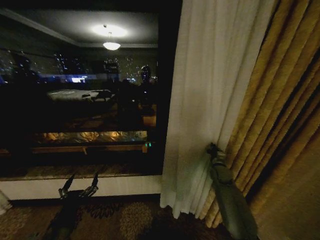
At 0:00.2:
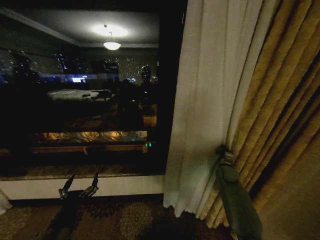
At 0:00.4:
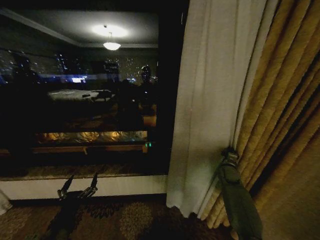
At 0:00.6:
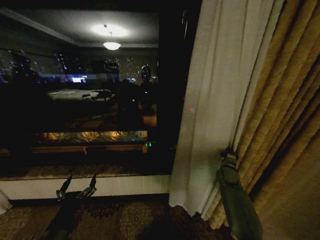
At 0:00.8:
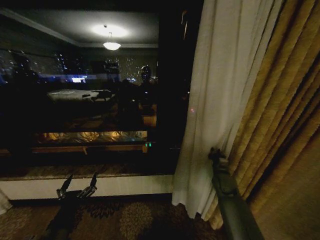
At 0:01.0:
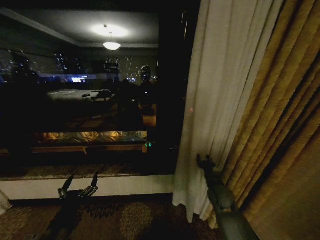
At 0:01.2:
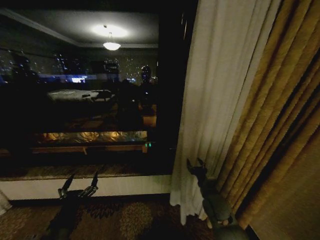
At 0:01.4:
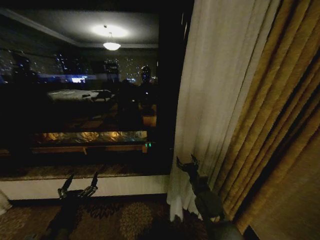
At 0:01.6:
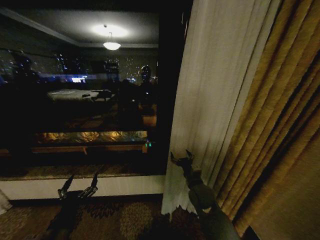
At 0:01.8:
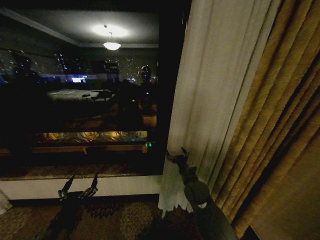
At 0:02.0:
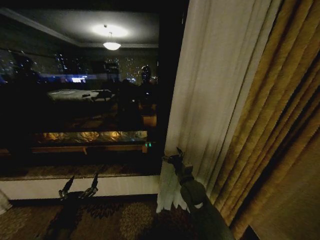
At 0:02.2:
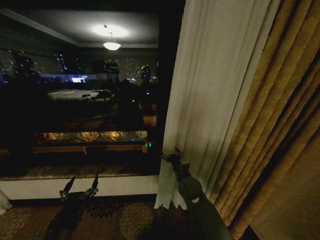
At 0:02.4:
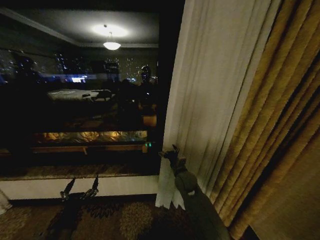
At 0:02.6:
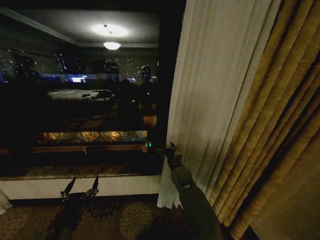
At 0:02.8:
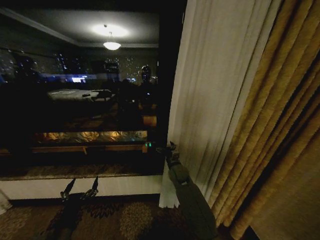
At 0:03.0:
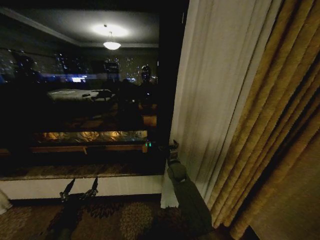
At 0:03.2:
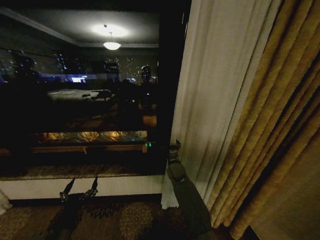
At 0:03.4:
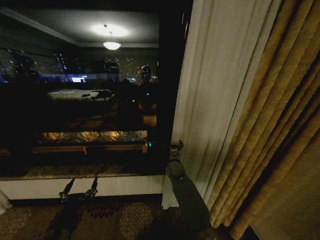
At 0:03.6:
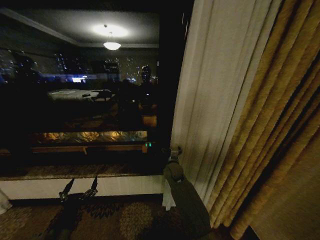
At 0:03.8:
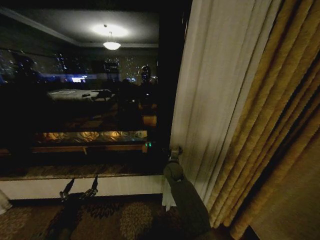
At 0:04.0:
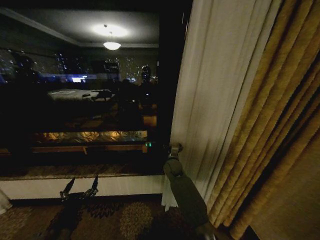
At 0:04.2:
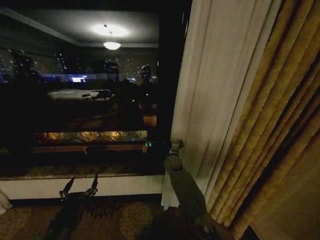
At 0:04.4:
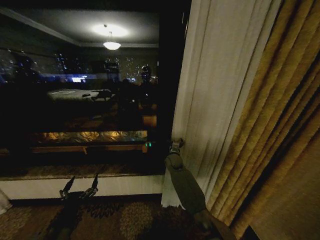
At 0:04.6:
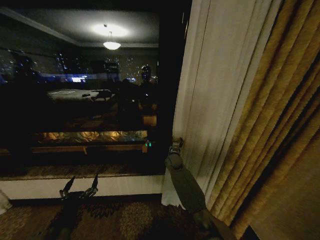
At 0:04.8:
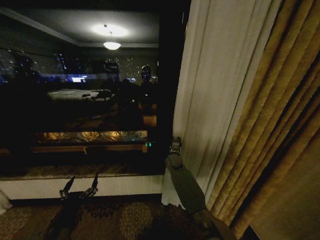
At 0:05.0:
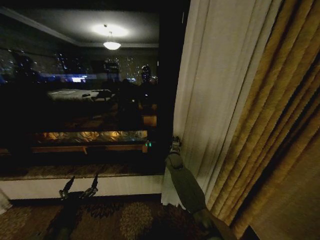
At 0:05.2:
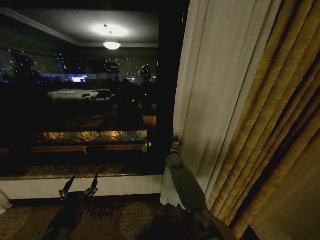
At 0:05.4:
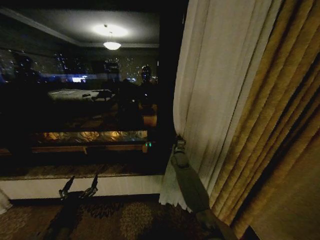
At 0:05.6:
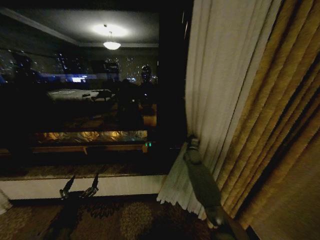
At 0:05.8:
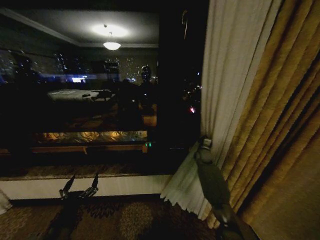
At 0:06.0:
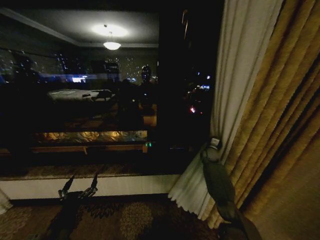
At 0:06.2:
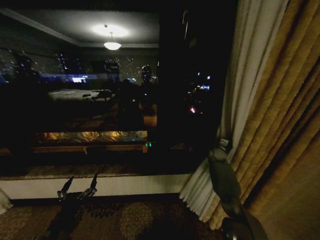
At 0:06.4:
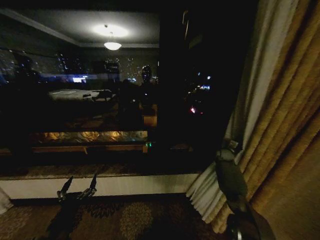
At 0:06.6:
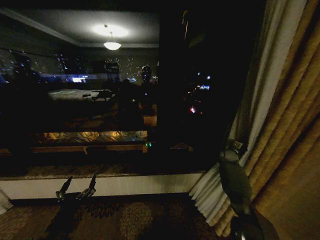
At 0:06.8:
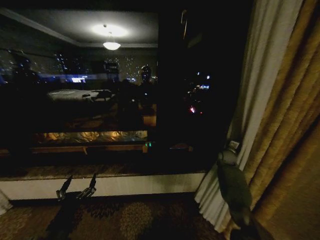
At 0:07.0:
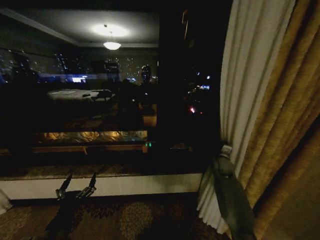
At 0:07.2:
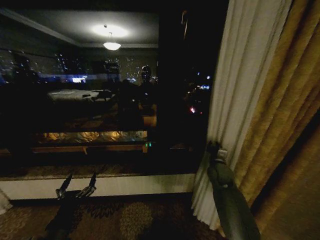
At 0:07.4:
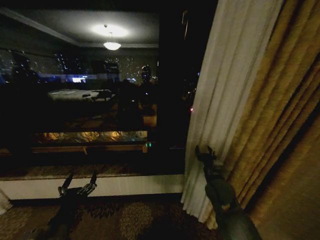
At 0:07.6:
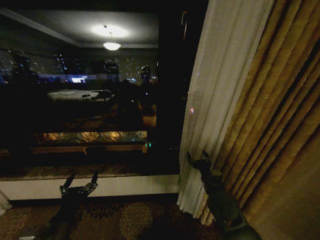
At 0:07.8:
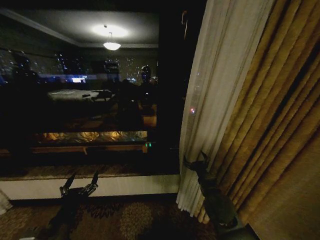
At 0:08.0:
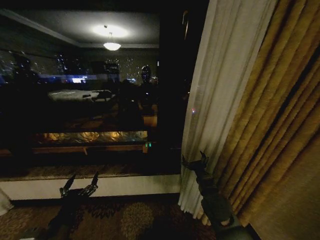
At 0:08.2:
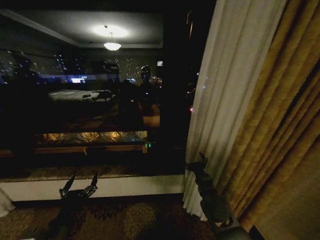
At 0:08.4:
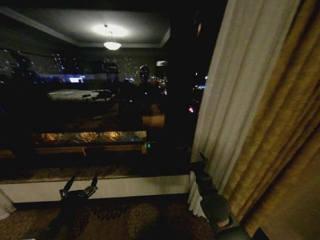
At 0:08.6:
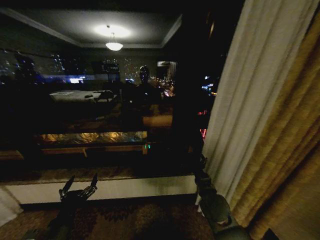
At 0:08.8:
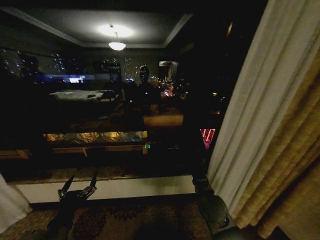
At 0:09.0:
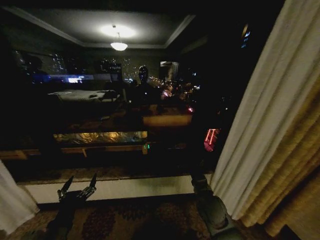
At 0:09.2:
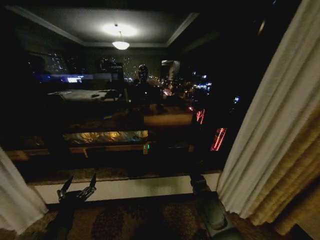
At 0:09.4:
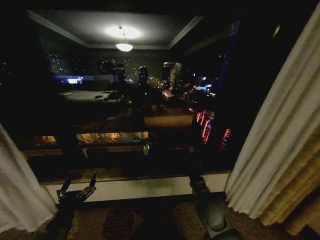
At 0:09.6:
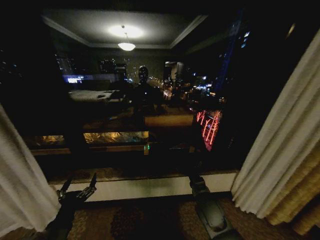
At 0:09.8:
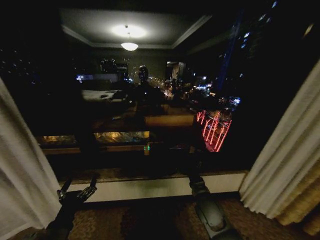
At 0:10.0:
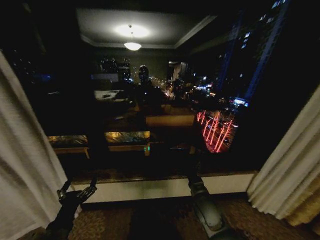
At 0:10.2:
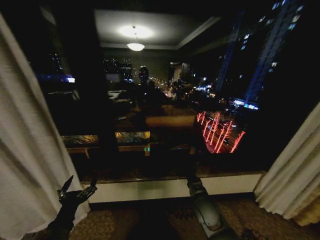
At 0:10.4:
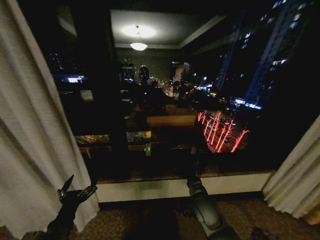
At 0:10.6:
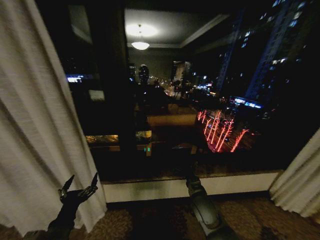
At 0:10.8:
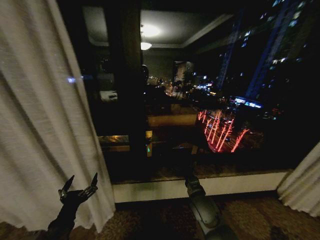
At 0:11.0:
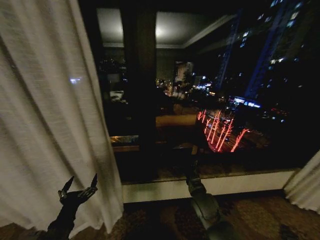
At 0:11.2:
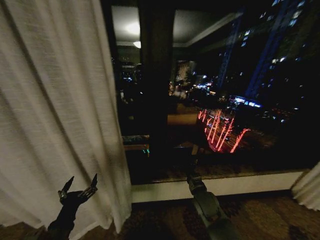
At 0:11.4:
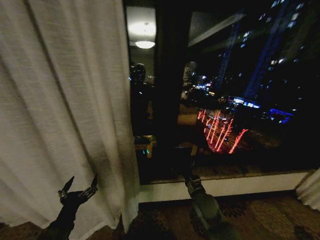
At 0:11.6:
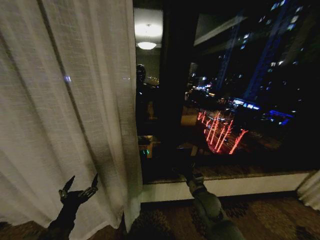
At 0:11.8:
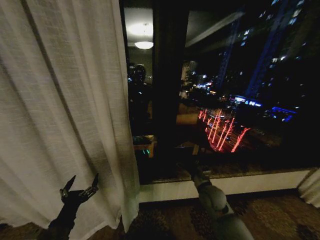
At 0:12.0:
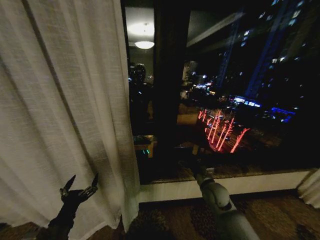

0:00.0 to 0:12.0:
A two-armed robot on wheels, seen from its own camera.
Task of the whole recording: Open the curtains by pulling them apart, changing their state from closed to fully open.
0:00.0 to 0:01.6: The right gripper is displaced to the left and backward by approximately 20 cm, and opens up.
0:01.6 to 0:03.0: The right gripper travels forward and to the left by some 15 cm.
0:03.0 to 0:04.4: The right gripper goes about 5 cm forward.
0:04.4 to 0:06.0: The right gripper goes approximately 20 cm to the right, and closes up.
0:06.0 to 0:07.6: The right gripper heads backward, covering some 25 cm, and opens up.
0:10.4 to 0:12.0: The right gripper moves to the right and forward, some 10 cm.

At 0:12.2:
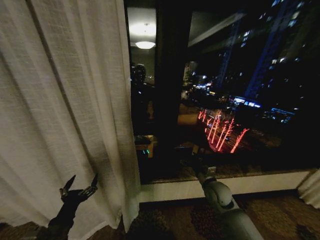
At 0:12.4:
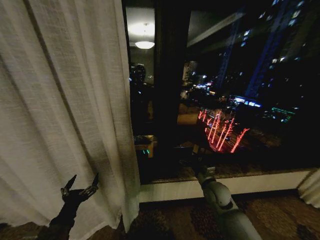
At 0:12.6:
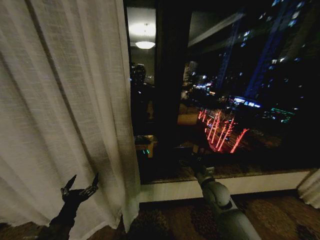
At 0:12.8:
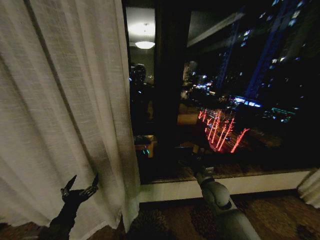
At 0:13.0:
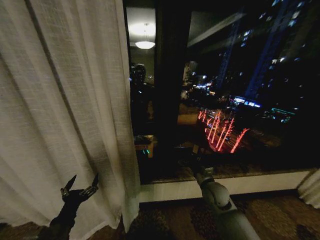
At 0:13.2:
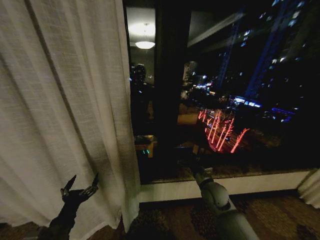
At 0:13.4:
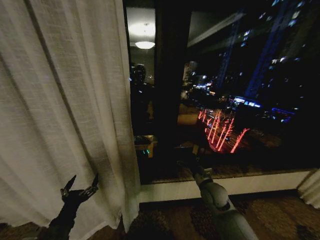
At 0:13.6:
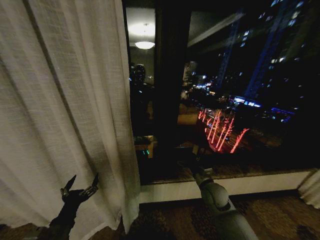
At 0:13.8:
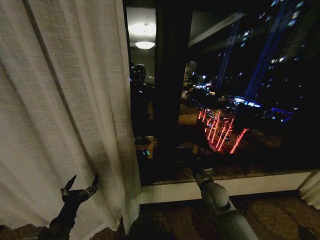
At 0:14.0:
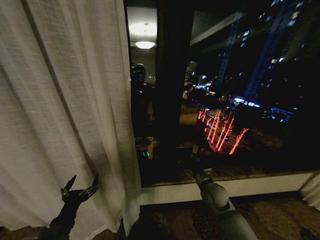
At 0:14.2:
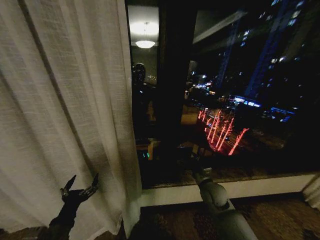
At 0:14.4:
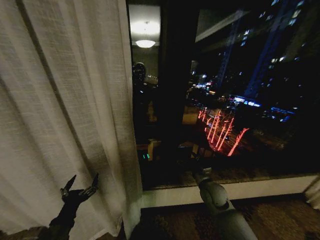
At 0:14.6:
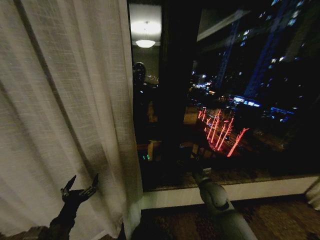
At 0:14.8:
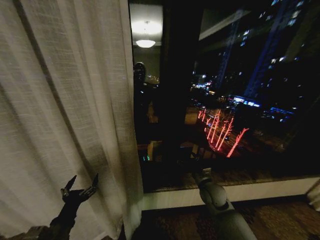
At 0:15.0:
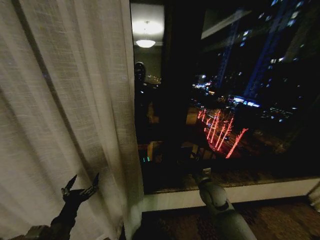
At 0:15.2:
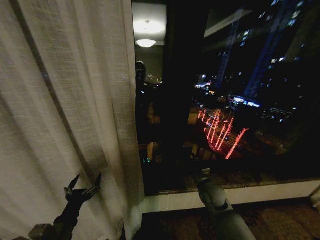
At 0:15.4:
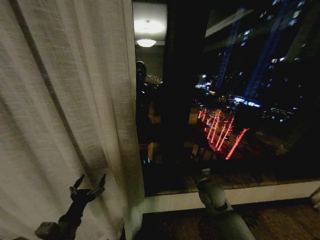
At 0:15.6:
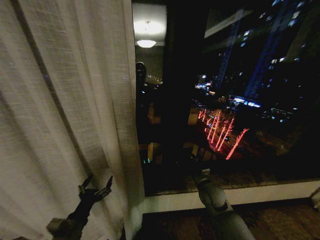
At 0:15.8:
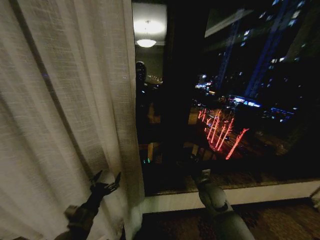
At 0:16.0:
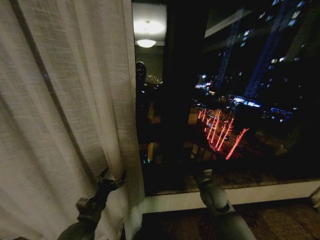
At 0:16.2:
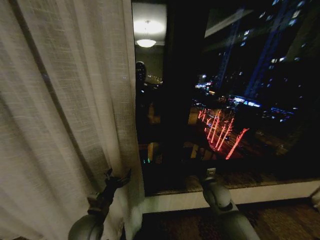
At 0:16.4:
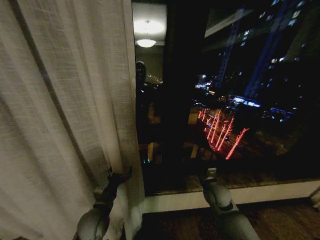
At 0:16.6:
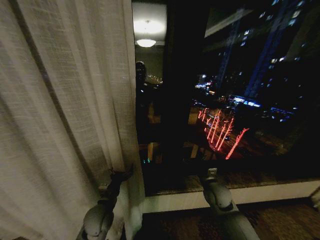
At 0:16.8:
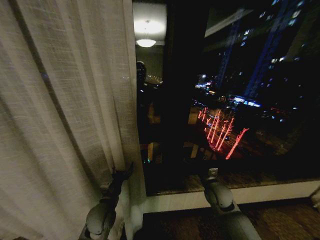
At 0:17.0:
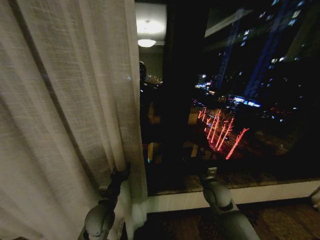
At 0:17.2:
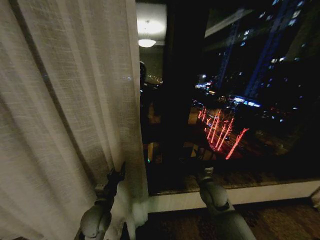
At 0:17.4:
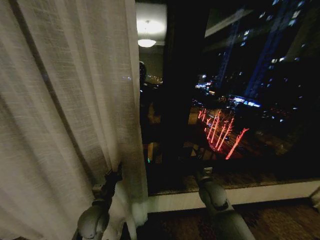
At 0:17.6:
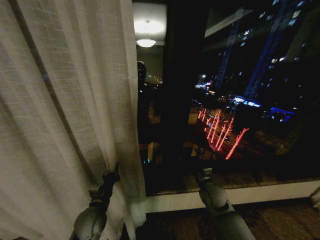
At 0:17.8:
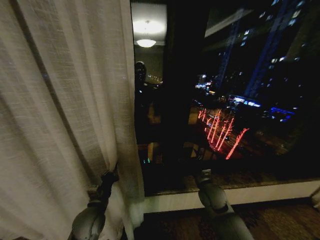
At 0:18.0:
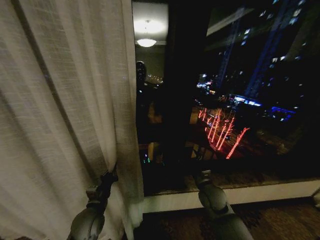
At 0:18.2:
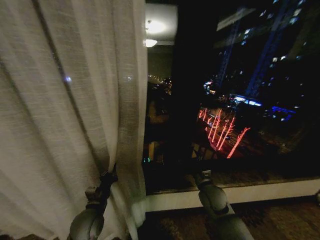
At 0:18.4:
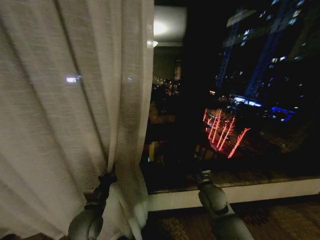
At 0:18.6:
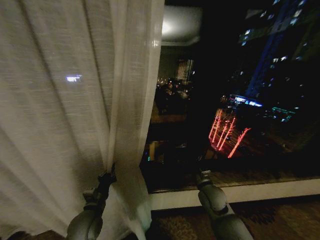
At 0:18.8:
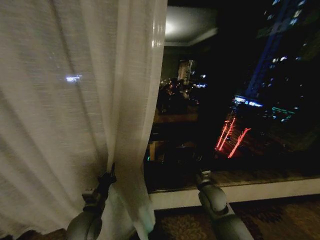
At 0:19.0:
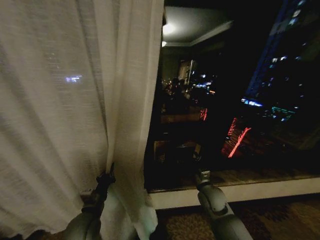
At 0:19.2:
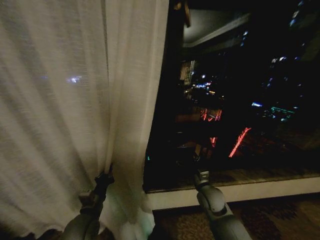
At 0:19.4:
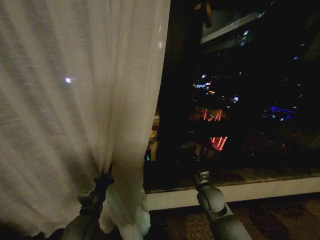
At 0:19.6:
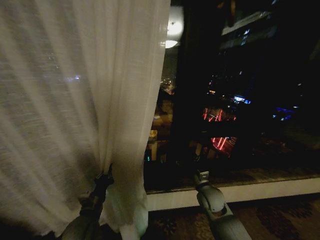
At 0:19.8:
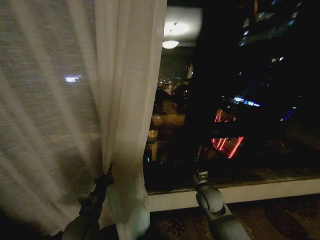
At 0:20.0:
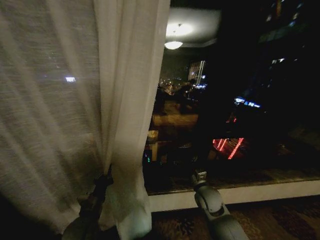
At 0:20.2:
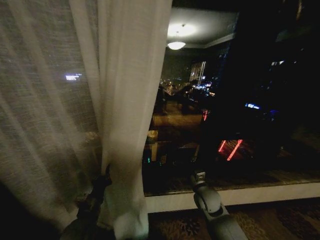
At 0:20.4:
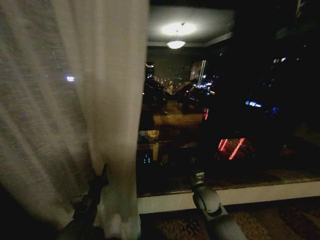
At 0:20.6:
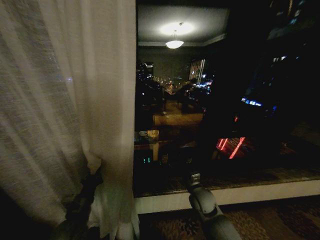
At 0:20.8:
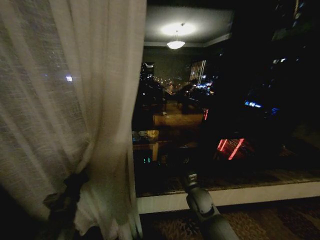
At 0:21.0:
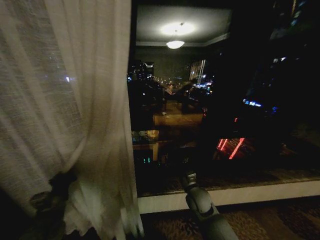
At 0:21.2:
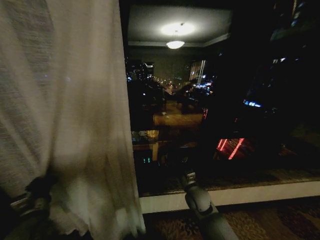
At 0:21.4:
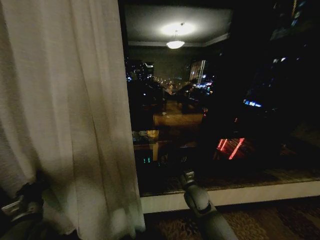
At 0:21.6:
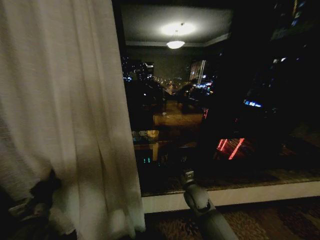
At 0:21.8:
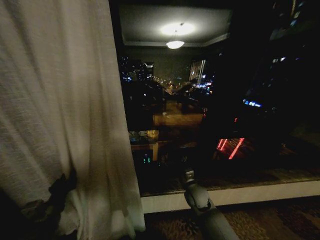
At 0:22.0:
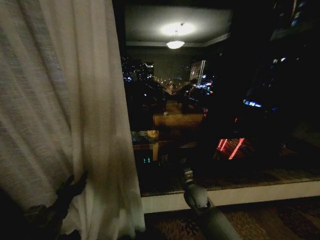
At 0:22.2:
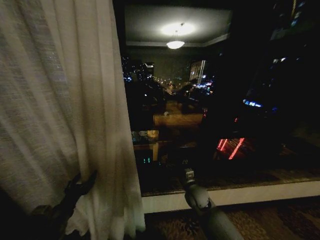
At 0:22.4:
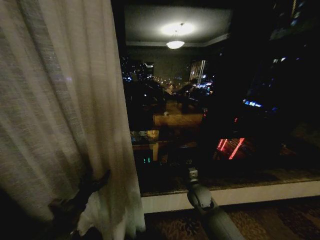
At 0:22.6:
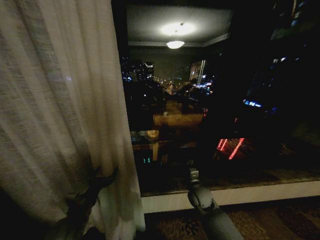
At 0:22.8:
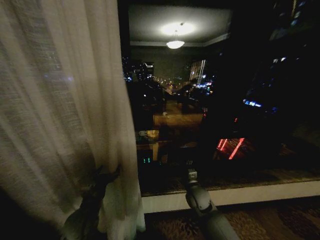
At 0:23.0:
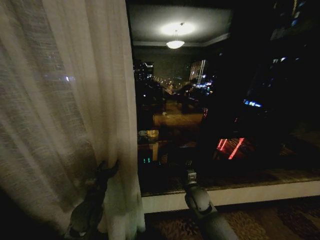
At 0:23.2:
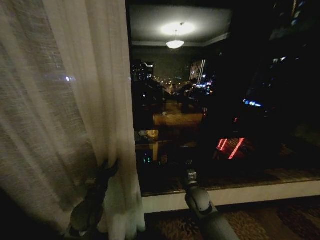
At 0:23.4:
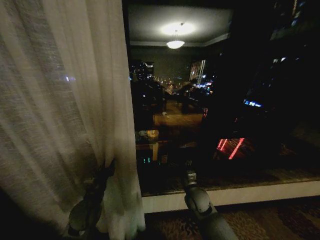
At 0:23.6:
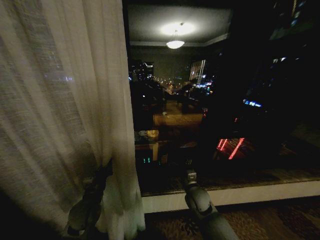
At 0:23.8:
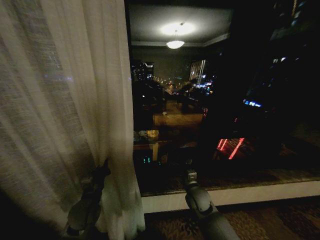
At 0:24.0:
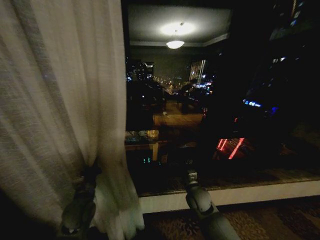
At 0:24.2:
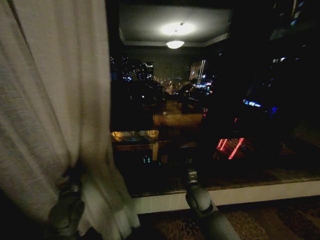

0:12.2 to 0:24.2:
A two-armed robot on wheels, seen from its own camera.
Task of the whole recording: Open the curtains by pulling them apart, changing their state from closed to fully open.
0:12.2 to 0:13.8: The grippers move only a little.
0:13.8 to 0:15.2: Both grippers stay about where they are.
0:15.2 to 0:16.6: The left gripper travels forward and to the right by about 15 cm.
0:16.6 to 0:18.2: The left gripper closes up.
0:19.8 to 0:21.2: The left gripper travels to the left by about 15 cm.
0:21.2 to 0:22.6: The left gripper shifts about 10 cm to the right, and opens up.
0:22.6 to 0:24.2: The left gripper travels forward by some 5 cm, and closes its fingers.
